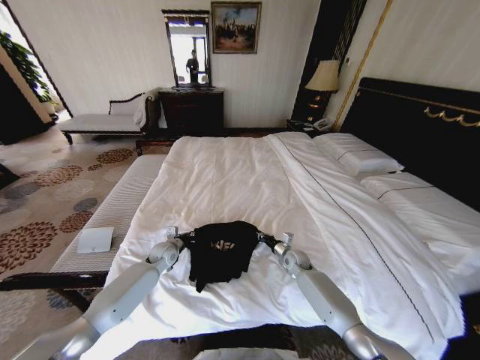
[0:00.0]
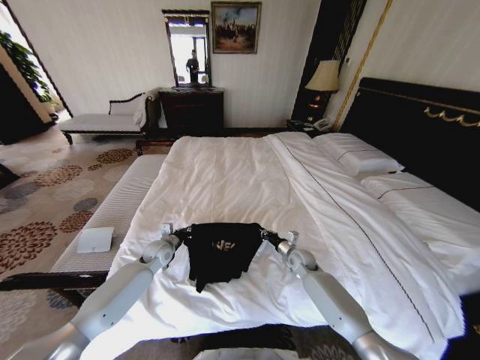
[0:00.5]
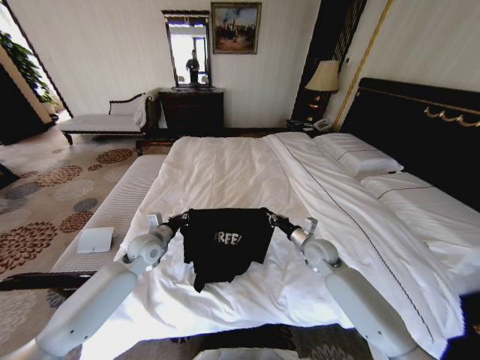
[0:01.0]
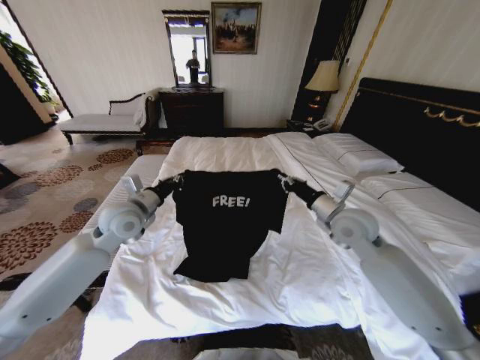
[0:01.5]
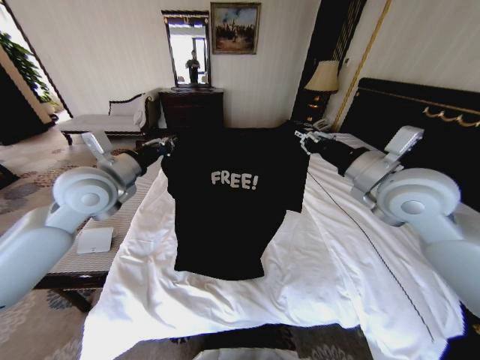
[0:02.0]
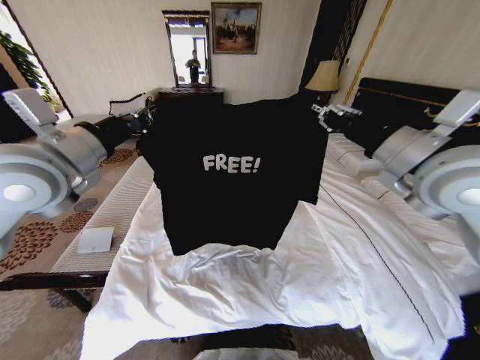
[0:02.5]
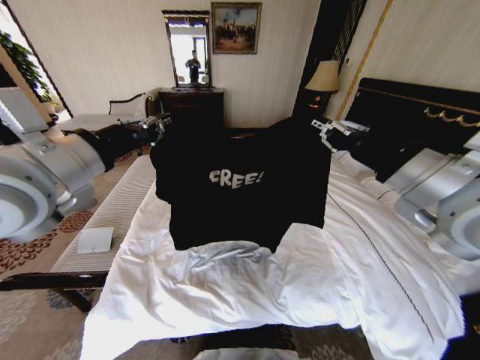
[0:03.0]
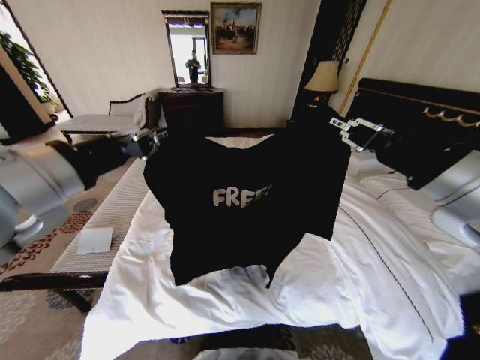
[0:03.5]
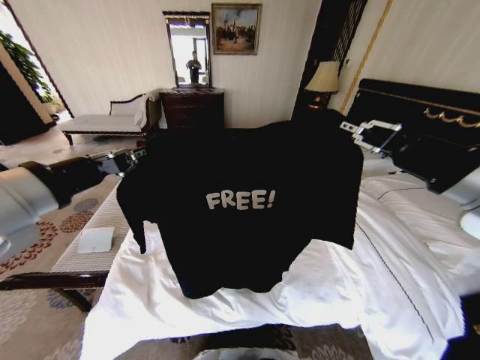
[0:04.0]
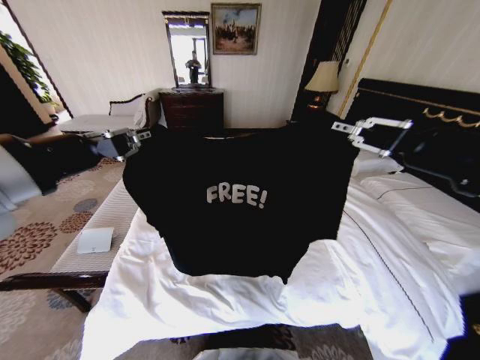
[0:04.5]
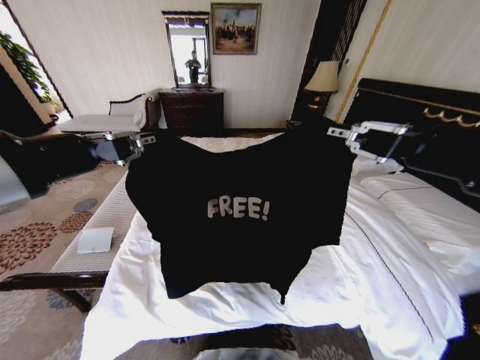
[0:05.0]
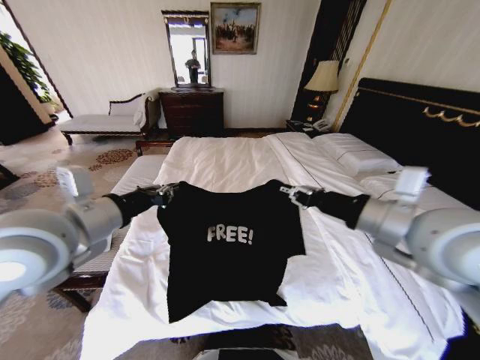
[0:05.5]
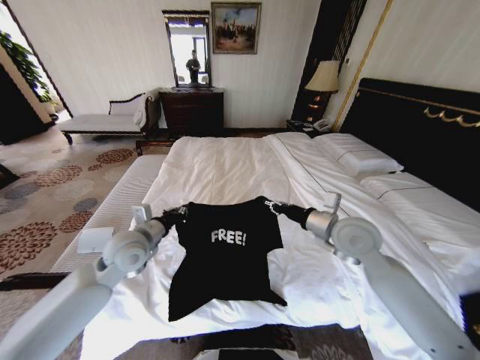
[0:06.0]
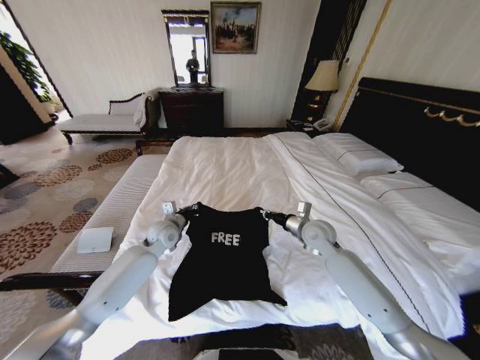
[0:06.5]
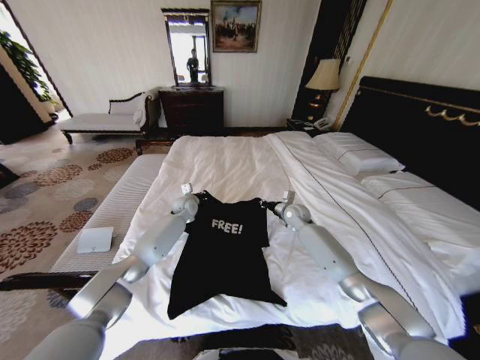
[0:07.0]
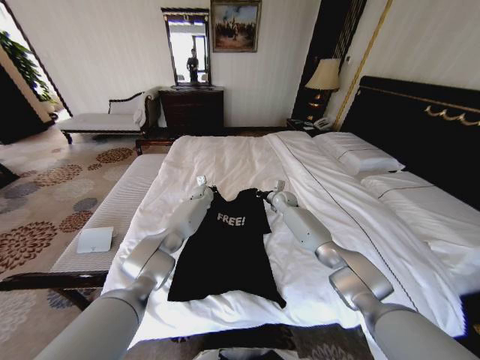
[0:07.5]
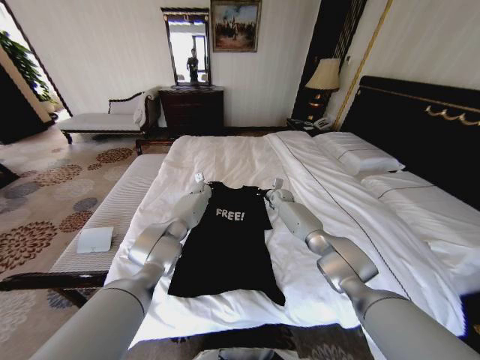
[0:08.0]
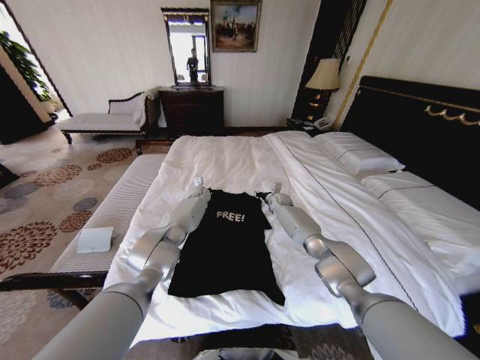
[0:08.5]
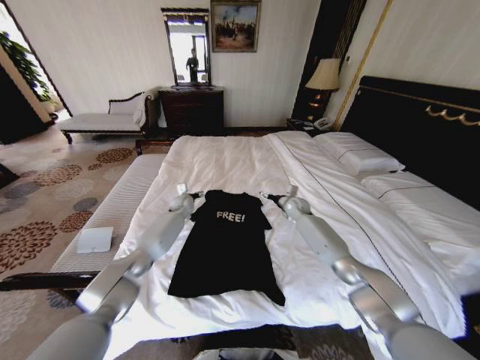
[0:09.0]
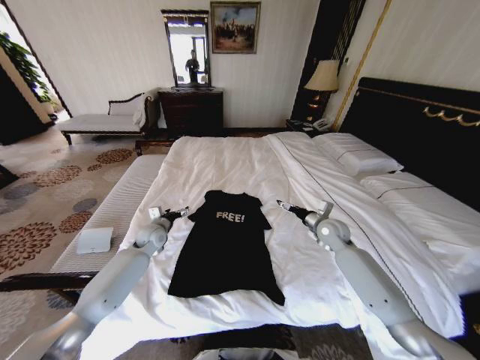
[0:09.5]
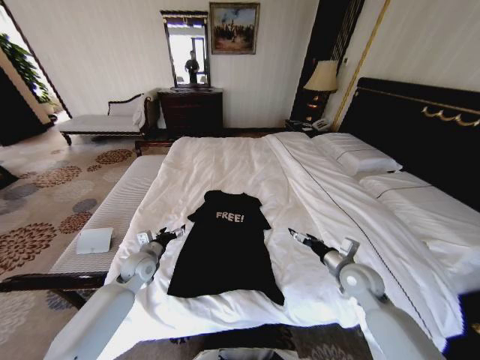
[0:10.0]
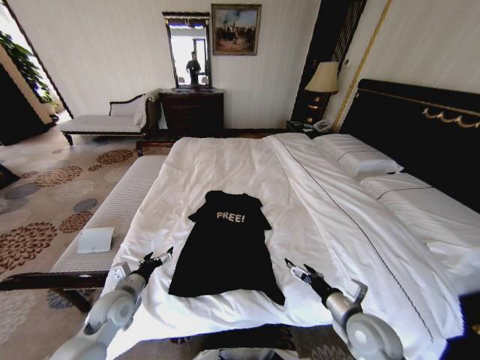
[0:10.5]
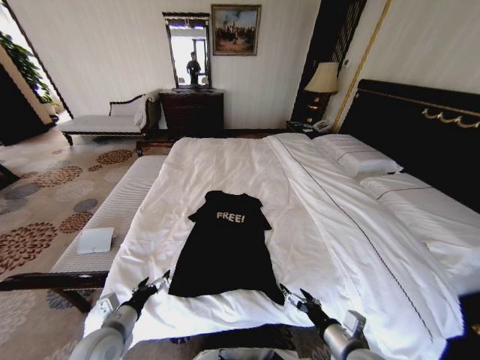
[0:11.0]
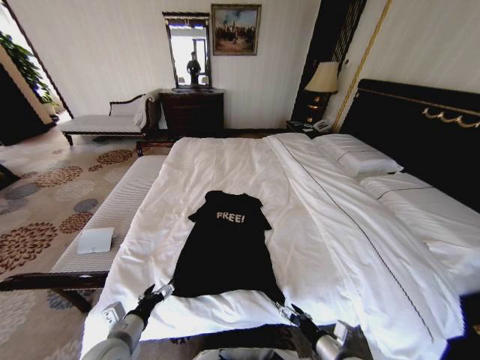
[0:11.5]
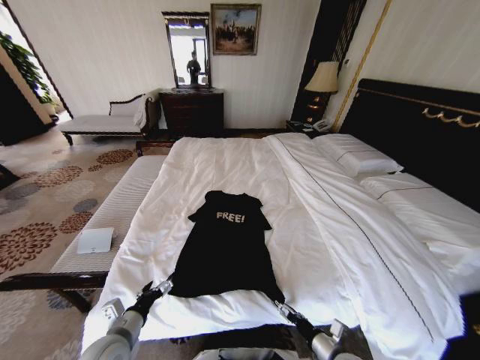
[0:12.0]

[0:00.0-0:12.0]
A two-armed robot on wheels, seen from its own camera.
Task of the whole recording: Fold the clothes on the bed.
0:00.0 to 0:02.0: The two grippers go roughly 40 cm upward.
0:02.0 to 0:04.0: The grippers both shift backward and upward by roughly 15 cm.
0:04.0 to 0:06.0: Both grippers travel together downward and forward, approximately 25 cm.
0:06.0 to 0:08.0: The right gripper travels forward and downward by roughly 35 cm; the left gripper shifts about 35 cm forward.
0:08.0 to 0:10.0: The left gripper is displaced backward and to the left by approximately 35 cm, and opens up, while the right gripper shifts approximately 35 cm backward, and opens its fingers.
0:10.0 to 0:12.0: The right gripper shifts about 20 cm backward and downward; the left gripper shifts about 20 cm backward.

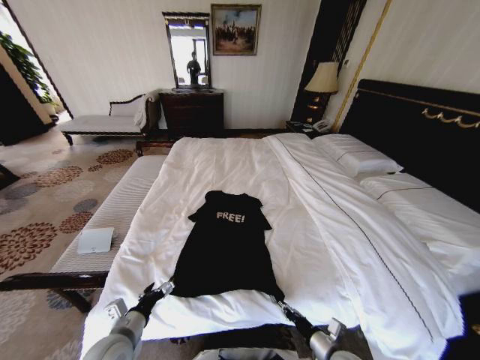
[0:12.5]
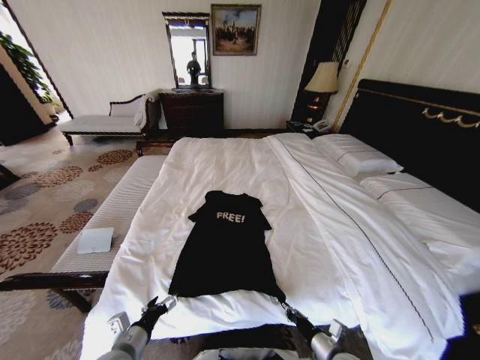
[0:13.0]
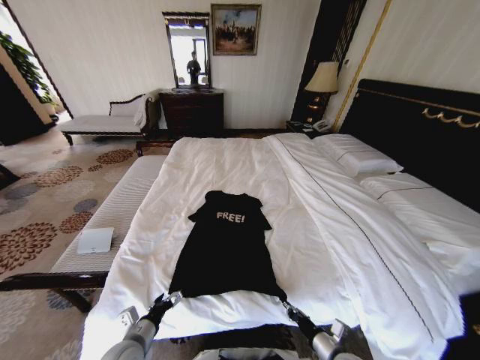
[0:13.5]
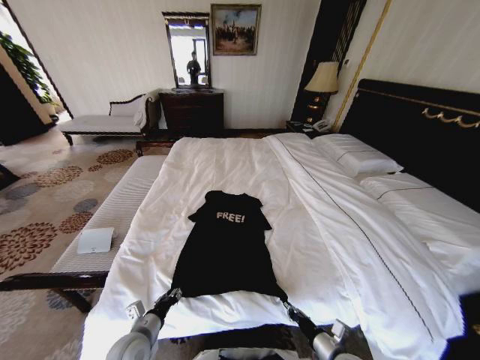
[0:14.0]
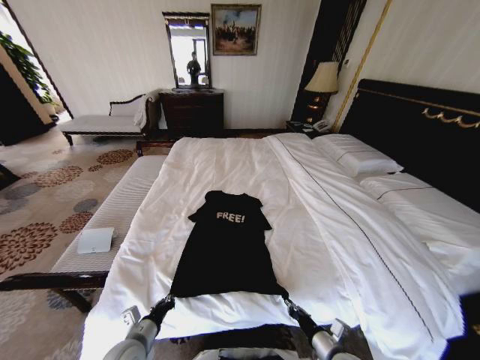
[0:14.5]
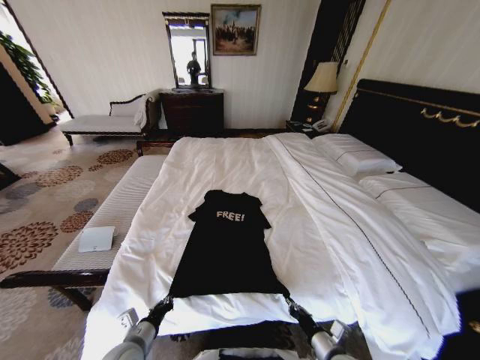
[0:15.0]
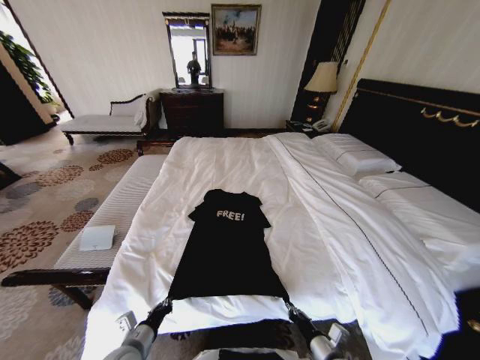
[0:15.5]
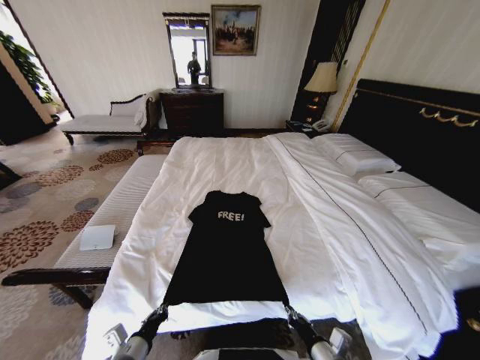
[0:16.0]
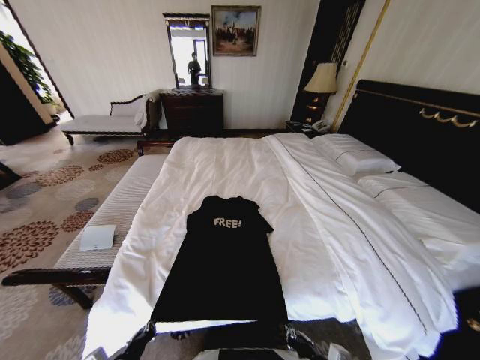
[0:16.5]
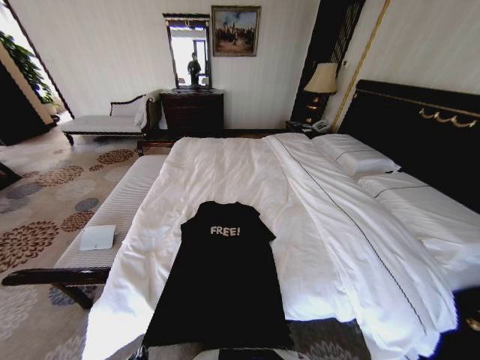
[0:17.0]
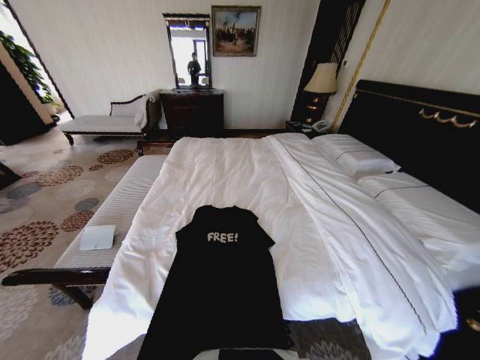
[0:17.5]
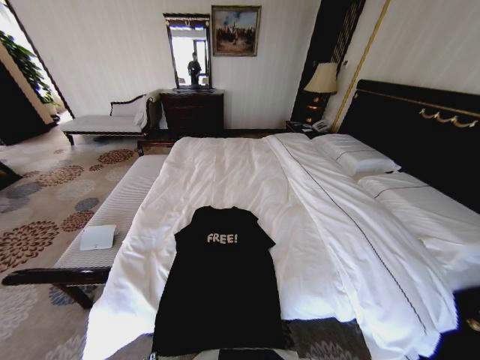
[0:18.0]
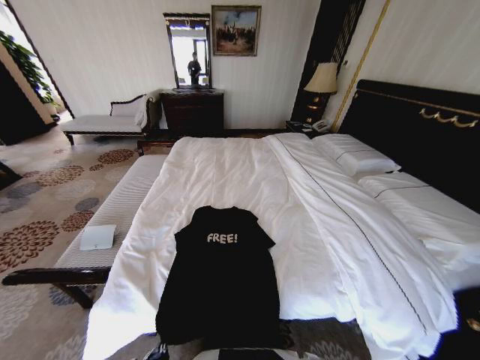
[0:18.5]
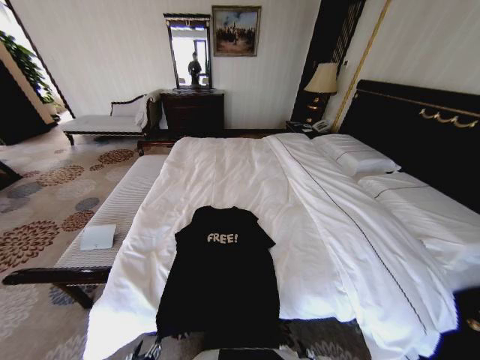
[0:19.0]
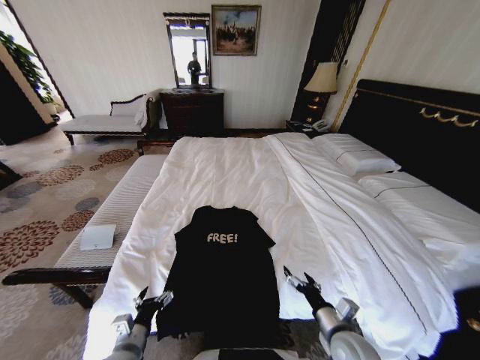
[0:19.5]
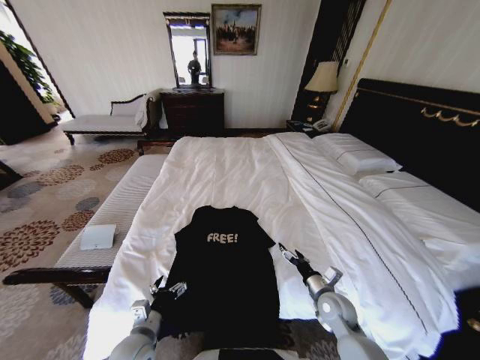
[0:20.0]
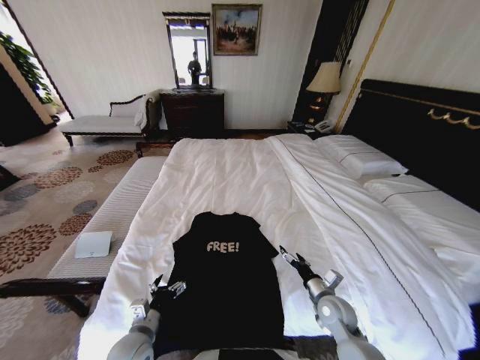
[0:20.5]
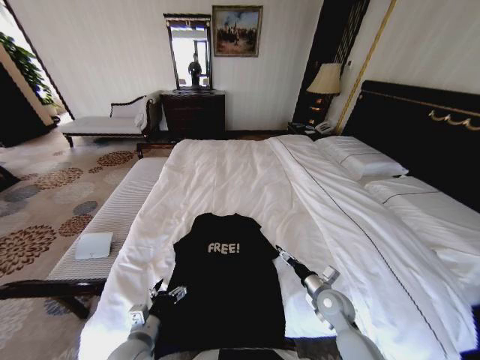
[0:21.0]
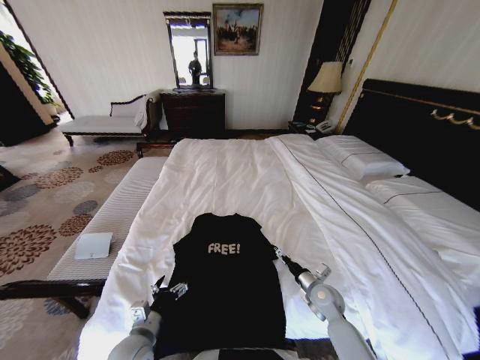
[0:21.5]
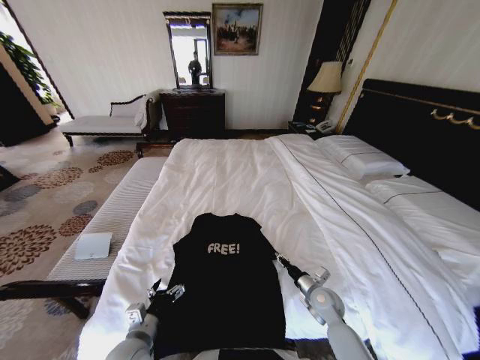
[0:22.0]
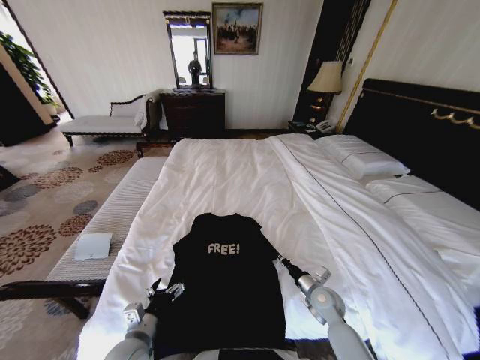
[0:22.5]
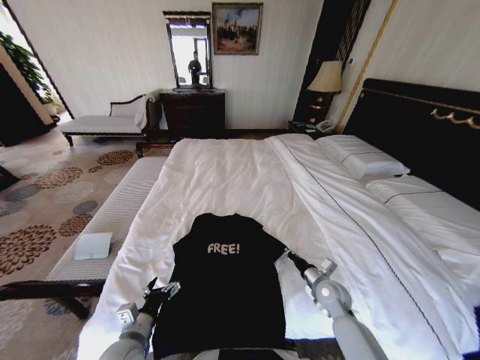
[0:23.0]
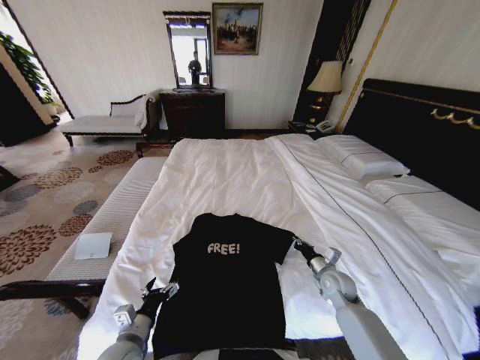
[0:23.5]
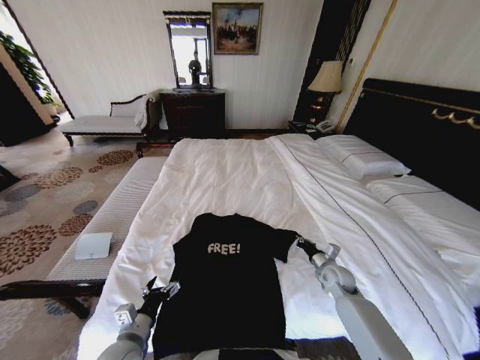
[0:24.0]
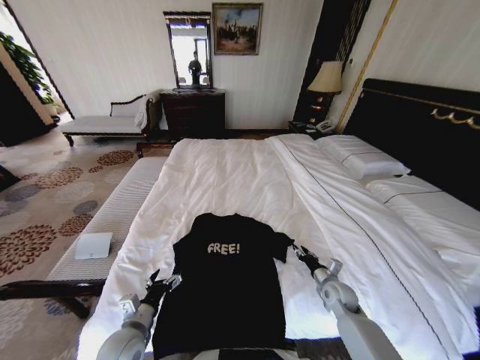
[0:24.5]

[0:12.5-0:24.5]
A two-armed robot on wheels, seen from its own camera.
Task of the whole recording: Fold the clothes on the bed.
0:12.5 to 0:14.5: The left gripper closes.
0:14.5 to 0:16.5: The left gripper heads backward, covering roughly 10 cm. The right gripper goes some 5 cm backward.
0:16.5 to 0:18.5: Both grippers move downward, approximately 5 cm.
0:18.5 to 0:20.5: The right gripper moves forward and to the right, roughly 20 cm, and opens its fingers; the left gripper moves forward and upward, roughly 15 cm, and opens.
0:20.5 to 0:22.5: The right gripper closes its fingers.
0:22.5 to 0:24.5: The right gripper moves to the right, approximately 5 cm, and opens its fingers.

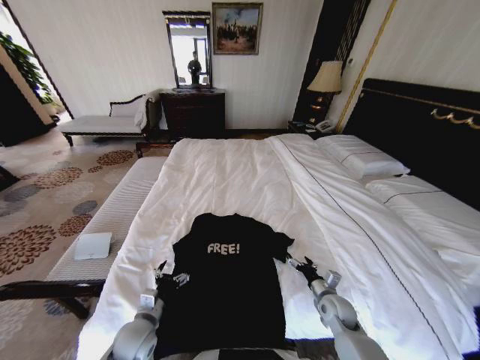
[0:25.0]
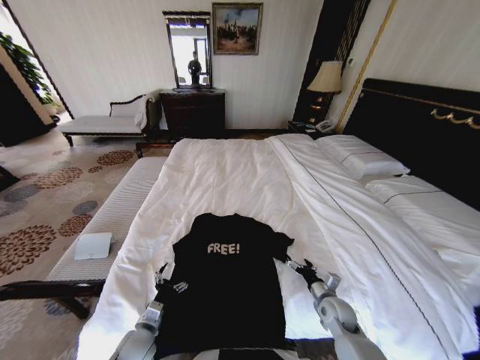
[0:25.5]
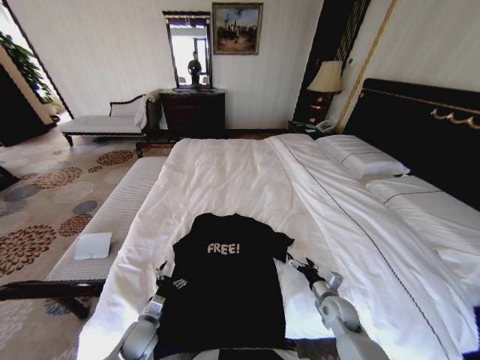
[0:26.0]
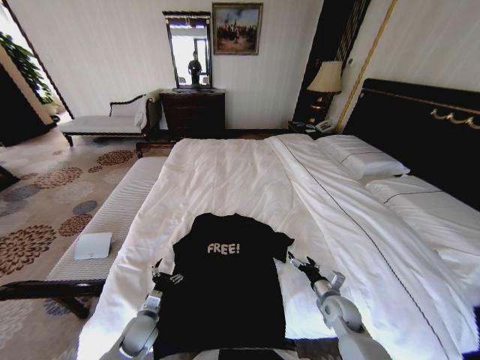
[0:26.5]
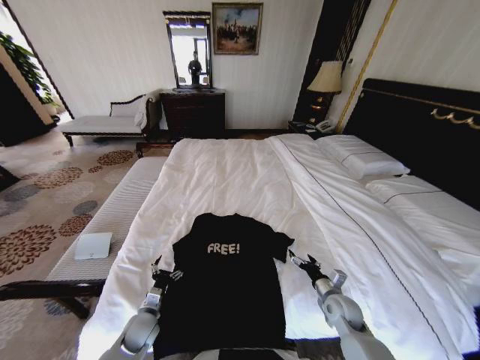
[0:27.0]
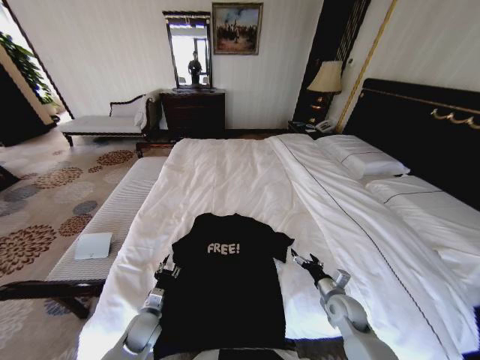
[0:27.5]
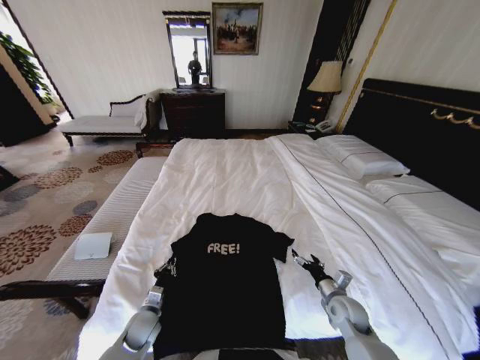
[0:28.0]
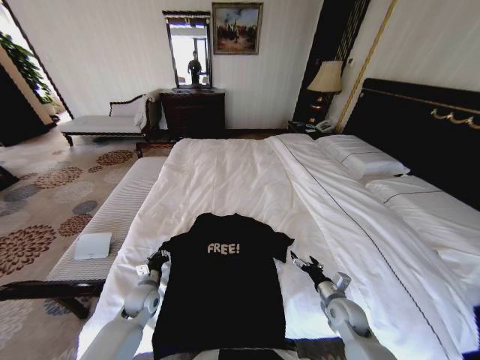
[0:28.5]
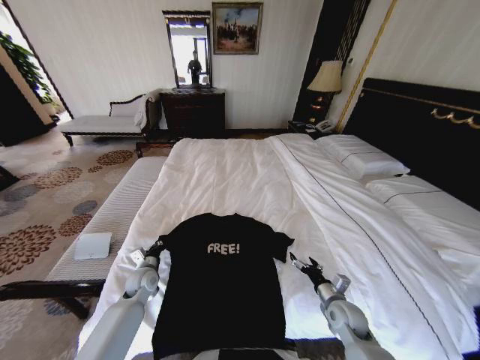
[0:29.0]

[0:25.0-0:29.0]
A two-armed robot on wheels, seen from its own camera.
Task of the whole recording: Fold the clothes on the bed.
0:25.0 to 0:27.0: The left gripper is displaced downward by roughly 10 cm.
0:27.0 to 0:29.0: The left gripper goes roughly 15 cm forward and upward, and closes.
